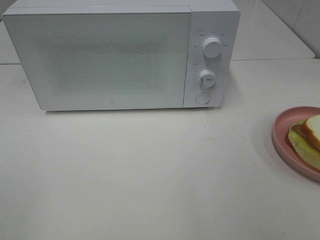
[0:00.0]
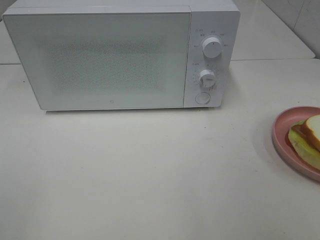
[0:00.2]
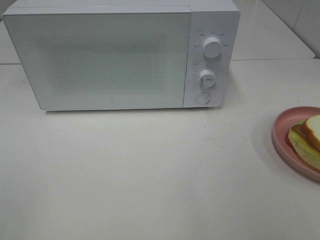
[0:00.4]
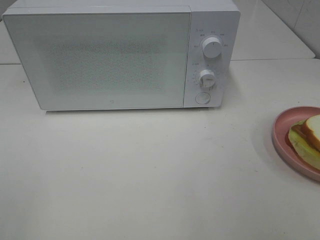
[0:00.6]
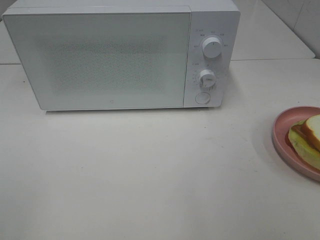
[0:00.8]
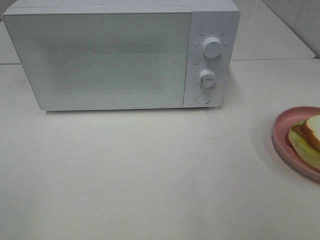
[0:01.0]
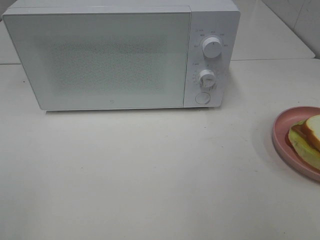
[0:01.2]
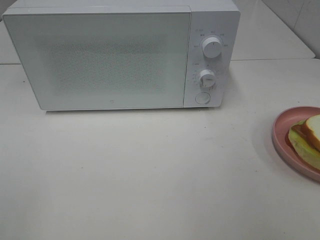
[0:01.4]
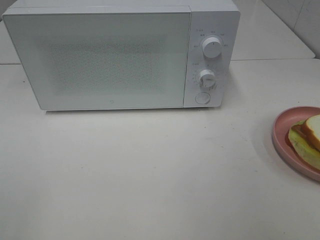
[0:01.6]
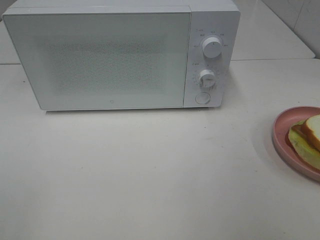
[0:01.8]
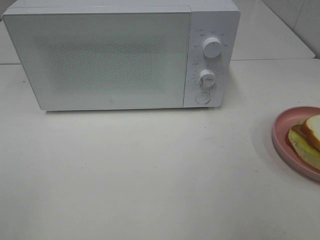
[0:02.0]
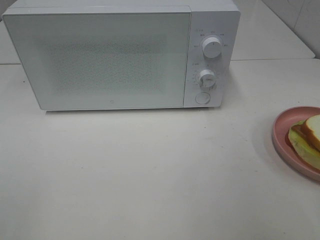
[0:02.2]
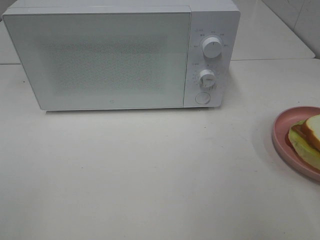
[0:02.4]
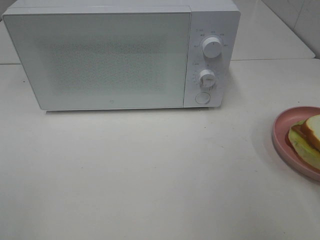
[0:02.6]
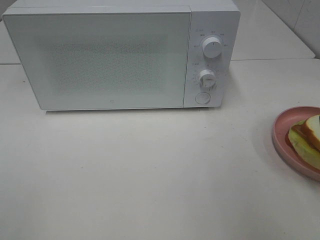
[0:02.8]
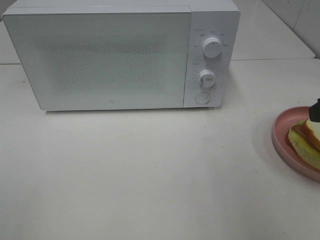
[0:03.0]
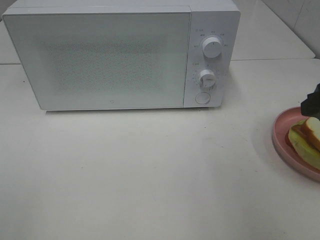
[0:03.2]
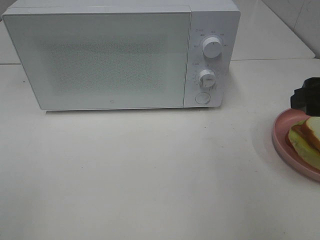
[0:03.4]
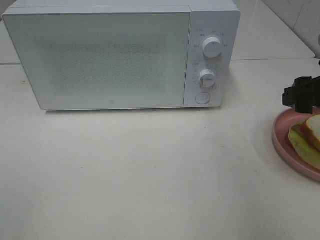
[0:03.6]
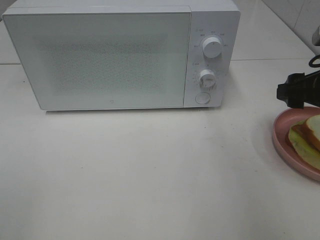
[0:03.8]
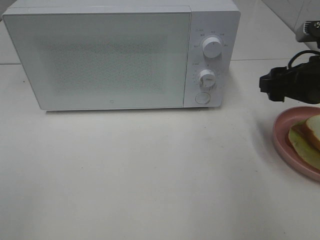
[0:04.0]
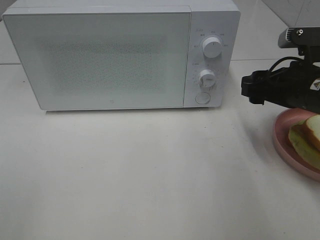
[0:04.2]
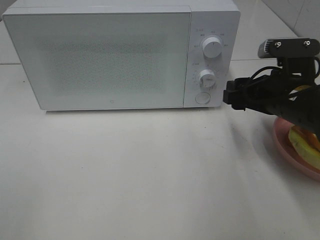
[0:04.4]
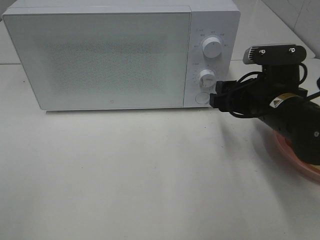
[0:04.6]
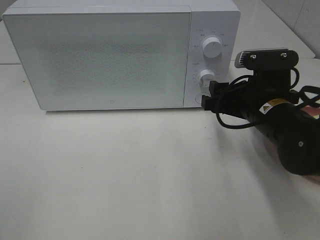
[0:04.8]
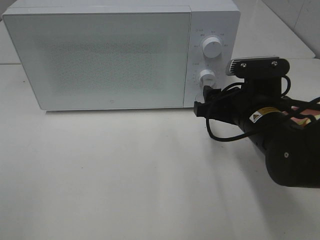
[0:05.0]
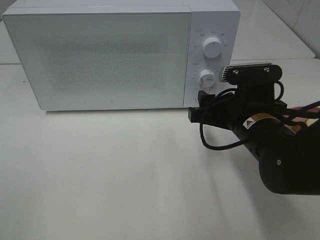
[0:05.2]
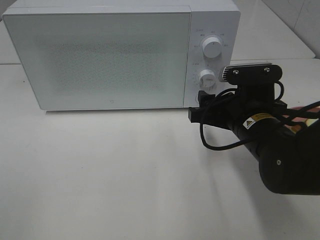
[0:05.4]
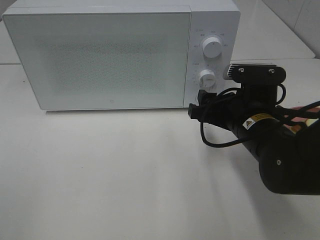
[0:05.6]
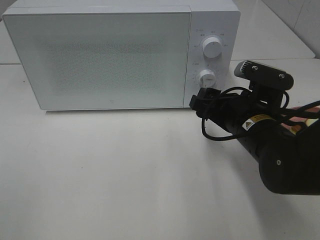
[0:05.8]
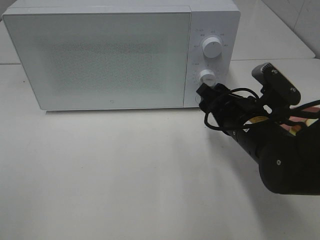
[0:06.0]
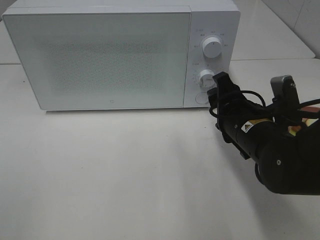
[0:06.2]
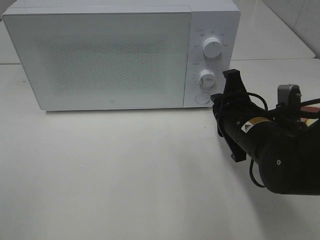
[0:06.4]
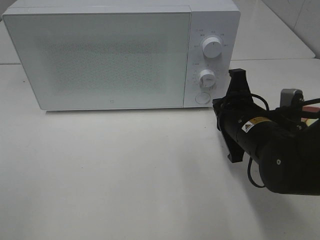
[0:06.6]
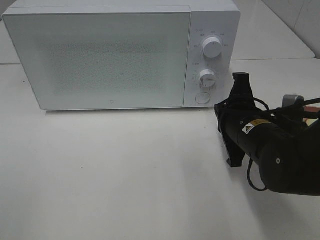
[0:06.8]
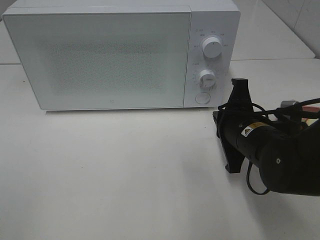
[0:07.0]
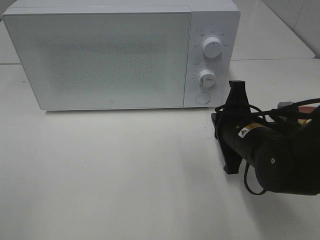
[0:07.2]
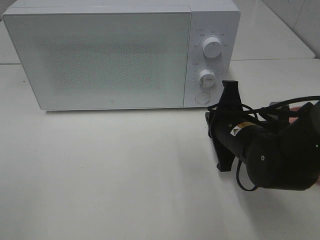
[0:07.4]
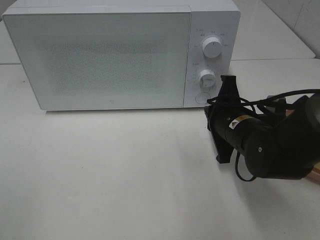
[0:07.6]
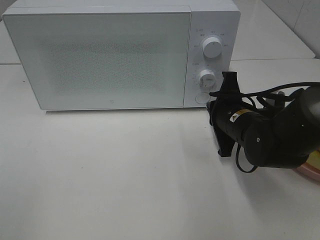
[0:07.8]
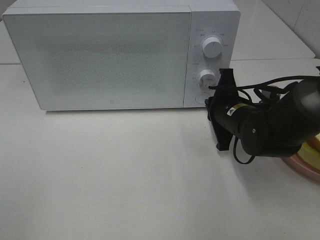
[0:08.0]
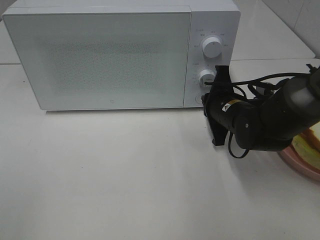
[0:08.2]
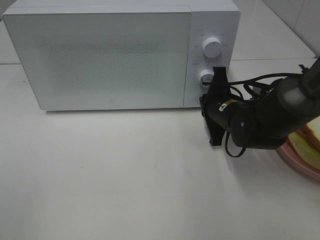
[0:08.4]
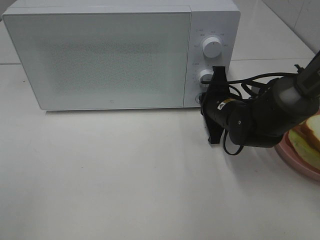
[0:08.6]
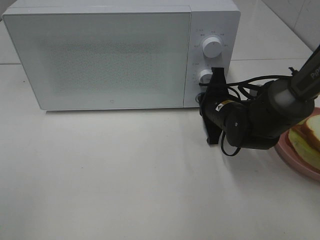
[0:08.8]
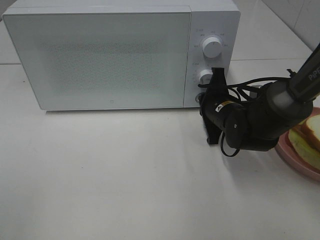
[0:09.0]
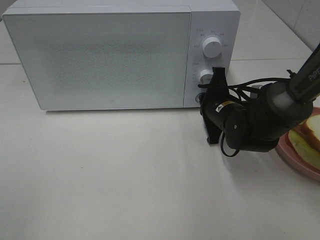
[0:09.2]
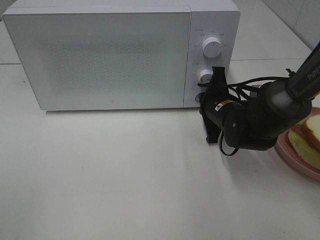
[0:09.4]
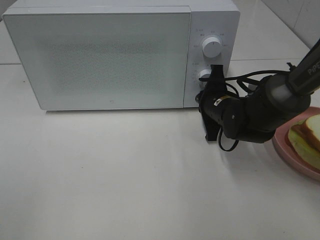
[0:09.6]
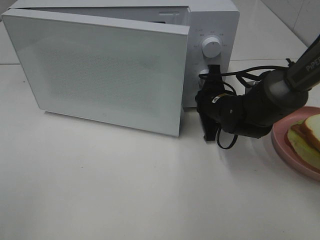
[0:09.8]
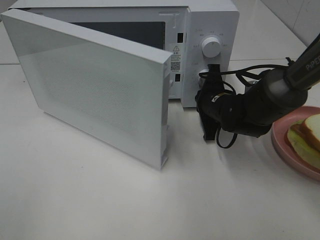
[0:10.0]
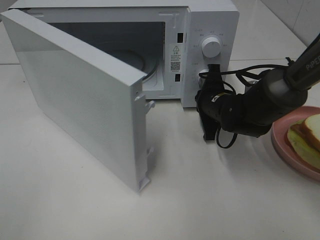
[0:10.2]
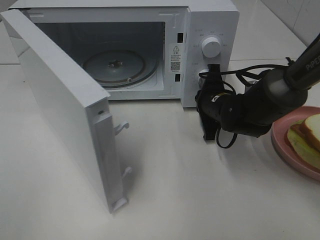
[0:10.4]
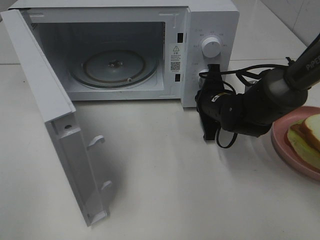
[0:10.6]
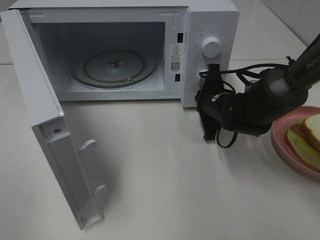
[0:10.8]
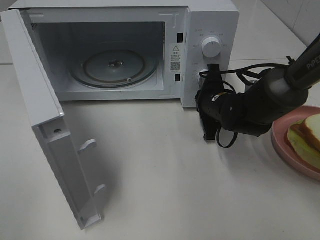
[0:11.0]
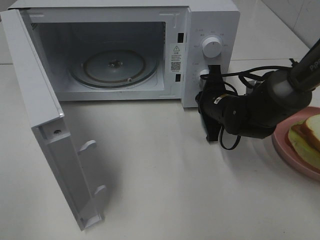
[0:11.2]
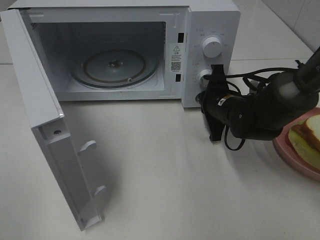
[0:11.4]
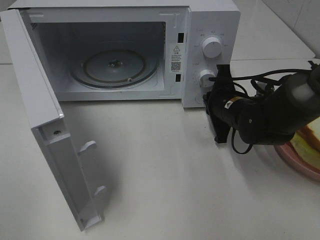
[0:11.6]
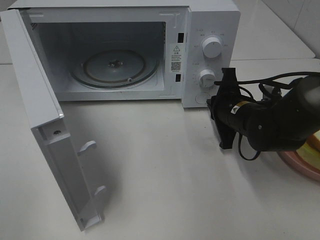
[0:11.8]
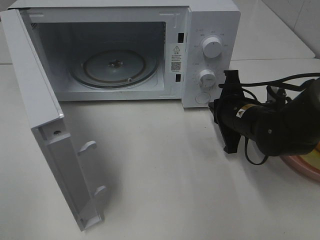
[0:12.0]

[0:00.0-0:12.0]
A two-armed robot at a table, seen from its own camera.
Task of the whole recording: Heat Sandwich.
Step, 0:00.0 to 0:11.8: Right hand: press the switch.
0:03.0 to 0:04.4: The right gripper goes roughly 15 cm downward, forward and to the left.
0:04.4 to 0:06.0: The right gripper shifts about 5 cm to the left.
0:06.0 to 0:07.6: The right gripper closes up.
0:07.6 to 0:09.0: The right gripper moves forward, approximately 5 cm.
0:10.4 to 0:12.0: The right gripper goes roughly 5 cm backward.

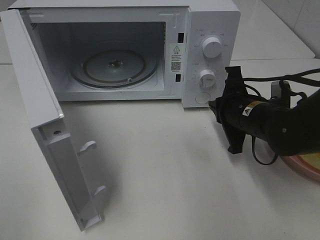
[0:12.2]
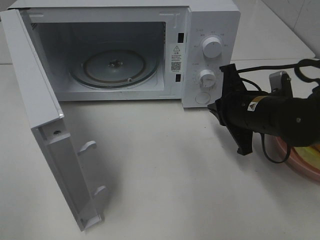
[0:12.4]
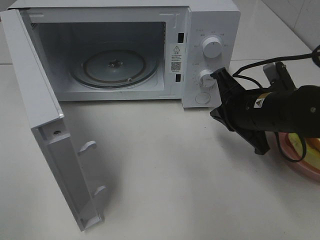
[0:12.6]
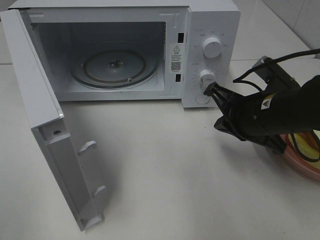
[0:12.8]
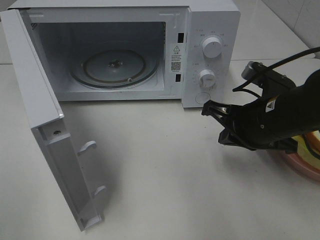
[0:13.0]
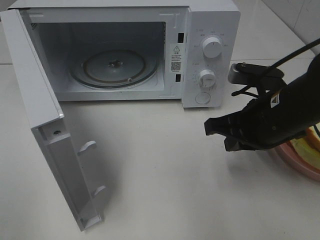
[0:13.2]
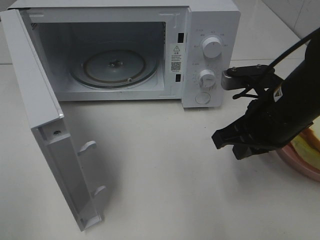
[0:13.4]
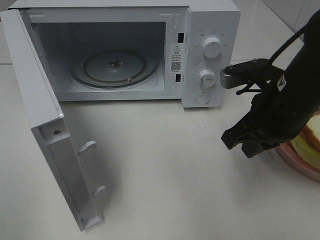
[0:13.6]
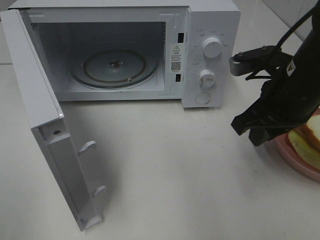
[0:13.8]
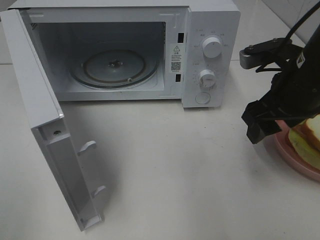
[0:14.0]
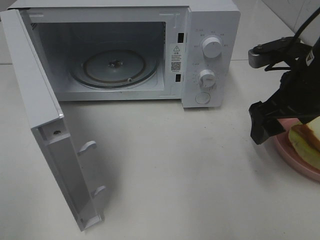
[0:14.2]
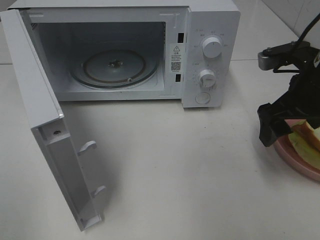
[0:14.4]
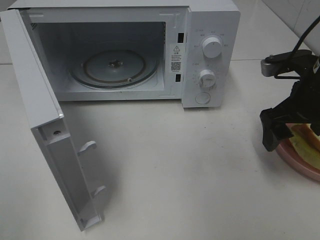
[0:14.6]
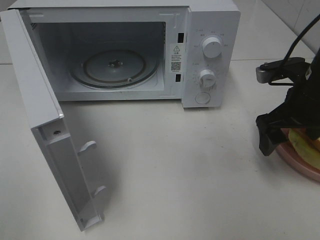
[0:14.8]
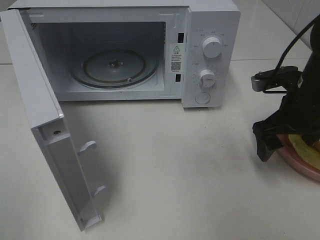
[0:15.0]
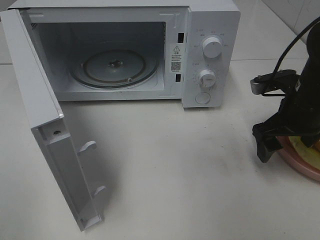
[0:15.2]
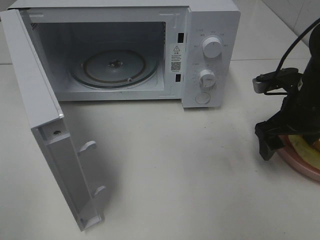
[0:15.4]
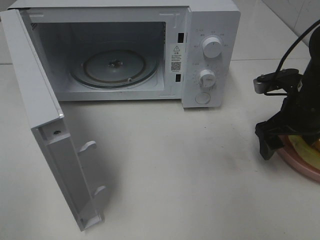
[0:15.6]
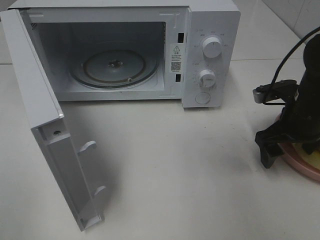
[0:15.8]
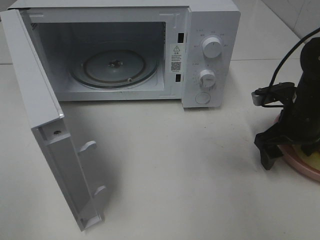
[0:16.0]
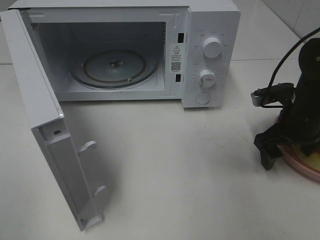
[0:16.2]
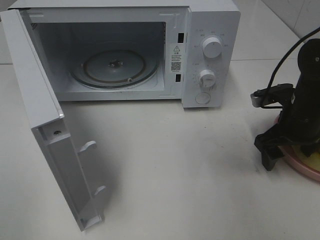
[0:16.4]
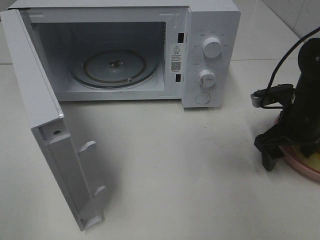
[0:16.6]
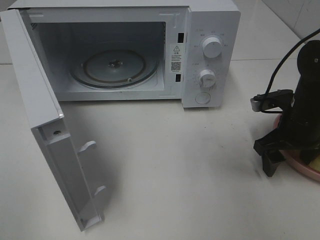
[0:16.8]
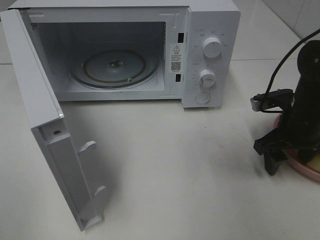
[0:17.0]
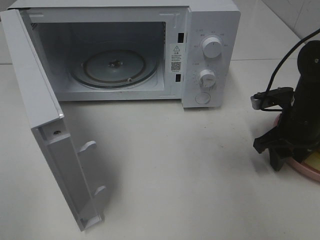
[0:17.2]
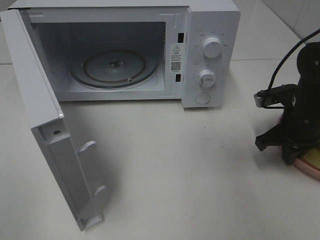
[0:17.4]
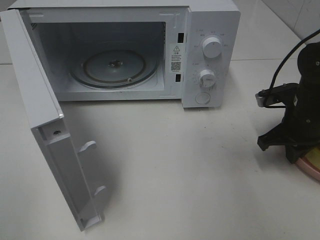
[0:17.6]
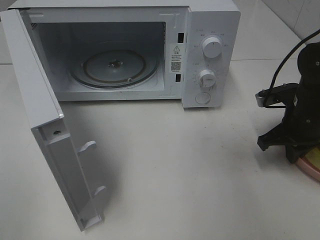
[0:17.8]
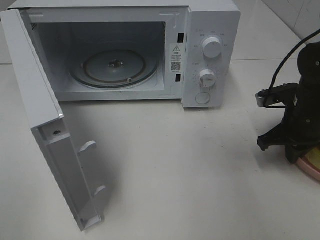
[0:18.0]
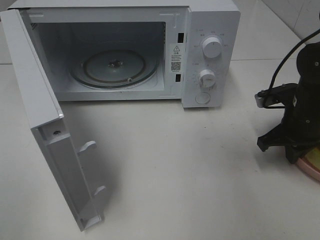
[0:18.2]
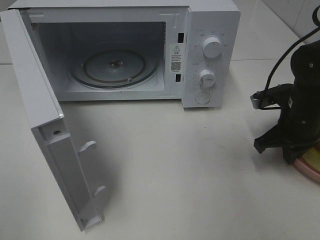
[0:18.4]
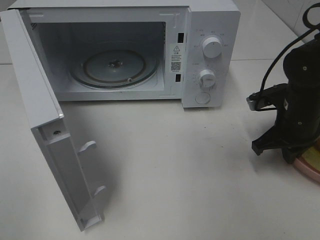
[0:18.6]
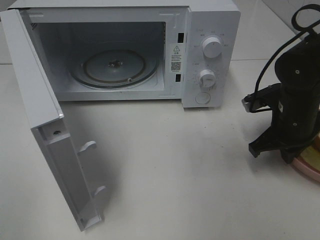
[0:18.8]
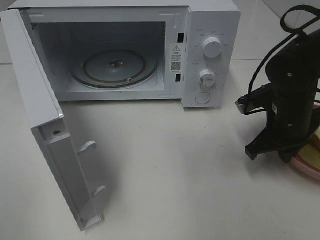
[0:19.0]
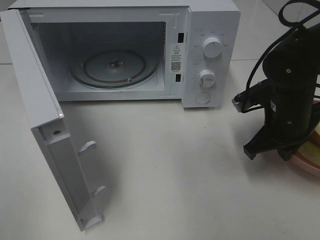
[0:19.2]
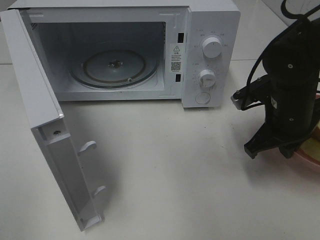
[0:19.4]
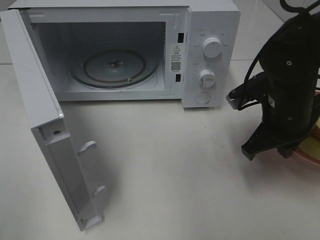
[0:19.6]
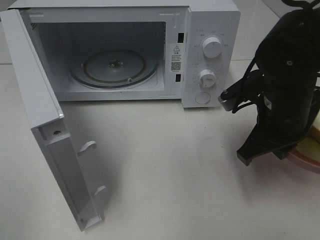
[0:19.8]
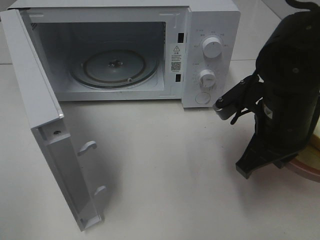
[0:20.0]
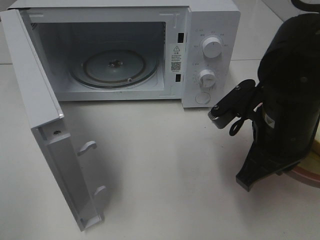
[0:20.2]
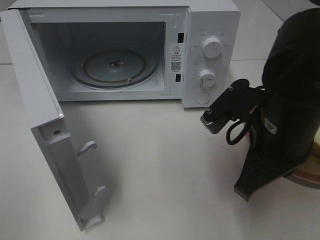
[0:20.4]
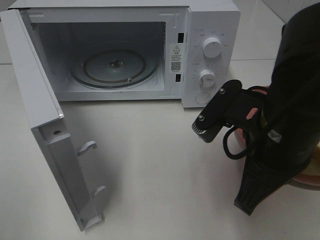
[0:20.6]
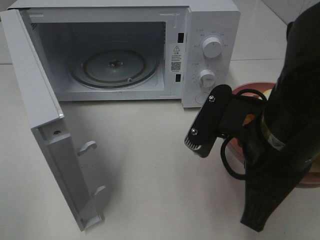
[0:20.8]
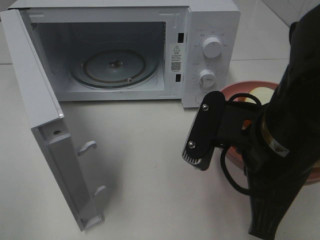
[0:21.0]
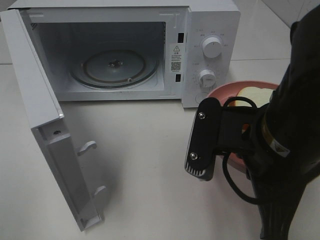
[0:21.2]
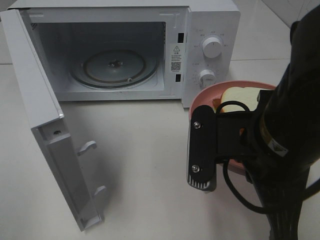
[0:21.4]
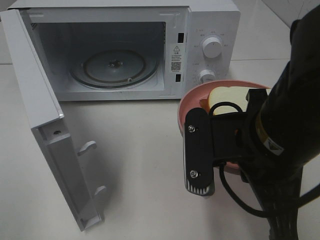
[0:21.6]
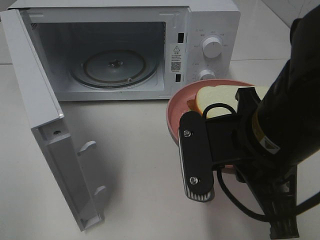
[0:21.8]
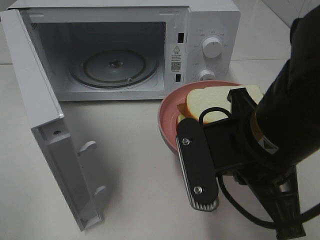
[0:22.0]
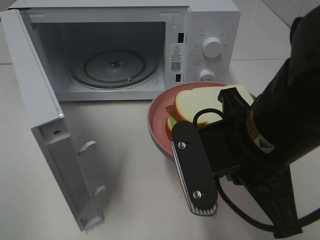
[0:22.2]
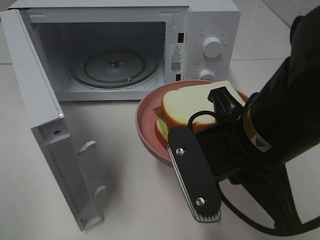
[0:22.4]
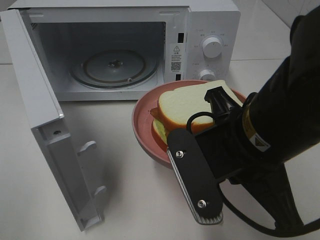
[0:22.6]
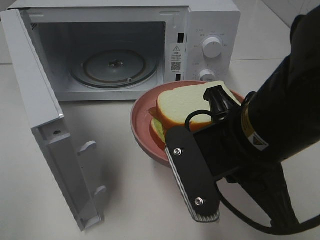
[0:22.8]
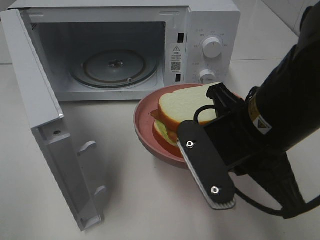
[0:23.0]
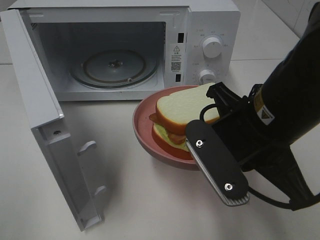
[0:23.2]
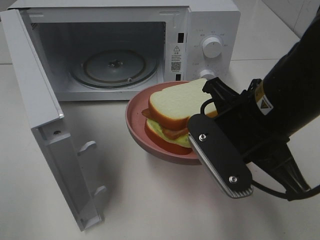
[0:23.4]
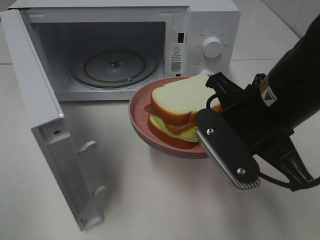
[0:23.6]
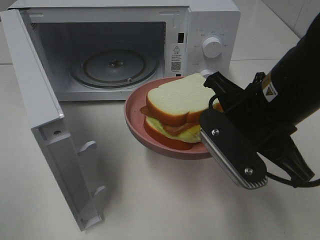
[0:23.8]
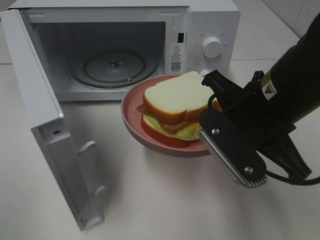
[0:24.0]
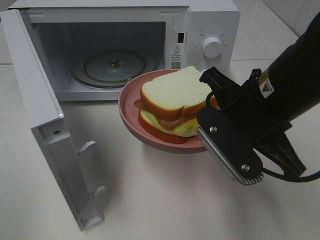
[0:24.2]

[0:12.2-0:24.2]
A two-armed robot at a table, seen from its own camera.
Task of the whole recording: Heat Sandwich.
Step, 0:12.2 to 0:18.0: Right hand: grab the plate with the sandwich.
0:12.2 to 0:13.8: The right gripper heads upward, covering some 10 cm, and opens its fingers.
0:13.8 to 0:15.2: The right gripper travels downward and to the right by some 10 cm, and opens its fingers.
0:15.2 to 0:16.6: The grippers move only a little.
0:16.6 to 0:18.2: The right gripper closes up.
0:18.2 to 0:19.8: The right gripper goes approximately 10 cm to the left, upward and backward.
0:19.8 to 0:21.2: The right gripper is displaced backward and to the left by about 10 cm.
0:22.6 to 0:24.2: The right gripper goes about 5 cm forward.
